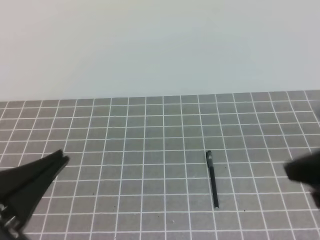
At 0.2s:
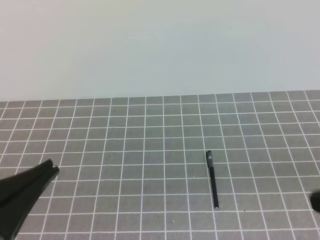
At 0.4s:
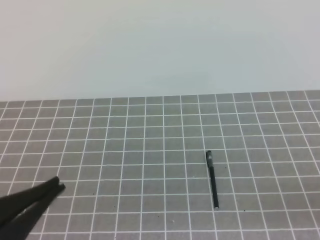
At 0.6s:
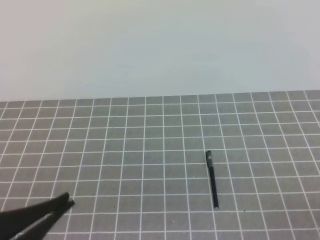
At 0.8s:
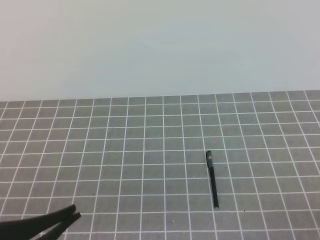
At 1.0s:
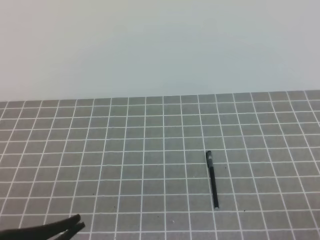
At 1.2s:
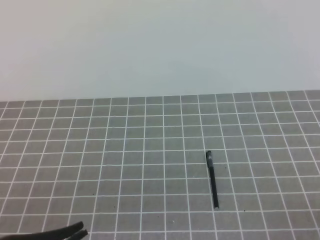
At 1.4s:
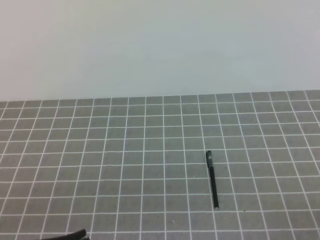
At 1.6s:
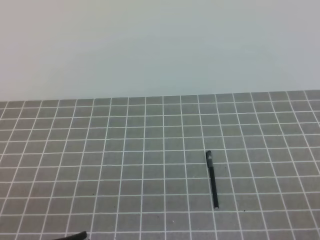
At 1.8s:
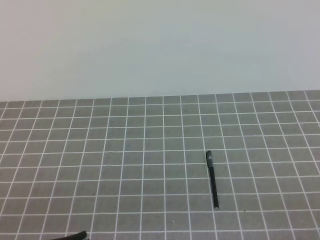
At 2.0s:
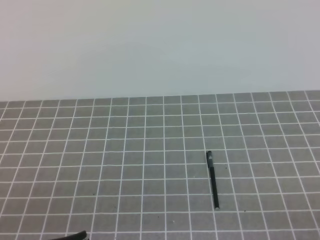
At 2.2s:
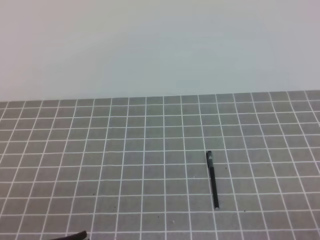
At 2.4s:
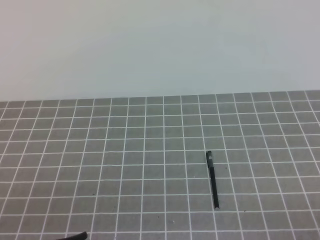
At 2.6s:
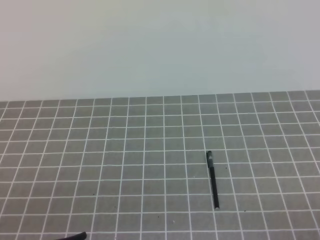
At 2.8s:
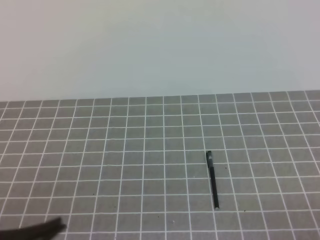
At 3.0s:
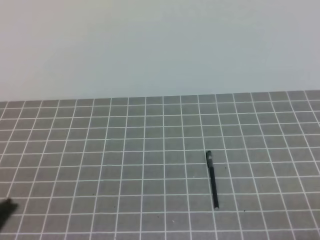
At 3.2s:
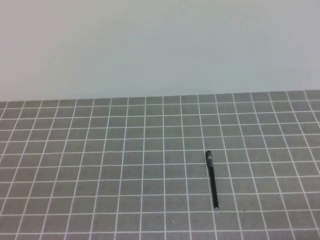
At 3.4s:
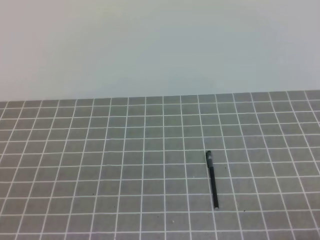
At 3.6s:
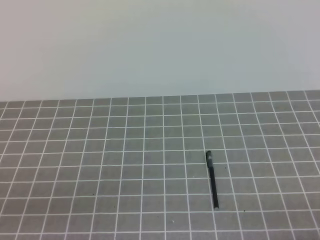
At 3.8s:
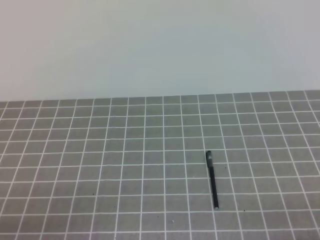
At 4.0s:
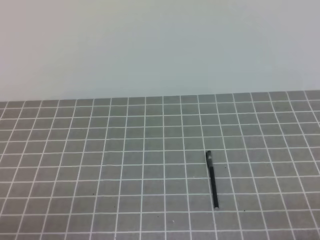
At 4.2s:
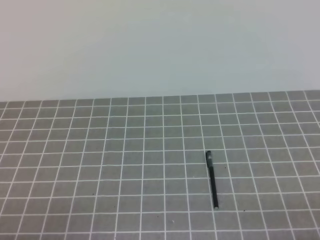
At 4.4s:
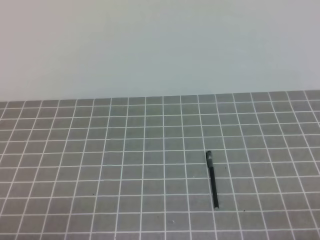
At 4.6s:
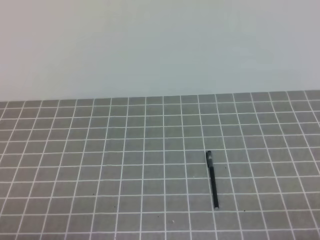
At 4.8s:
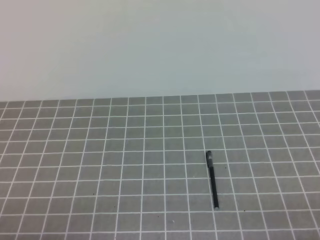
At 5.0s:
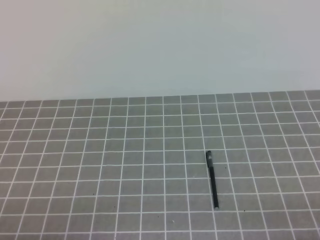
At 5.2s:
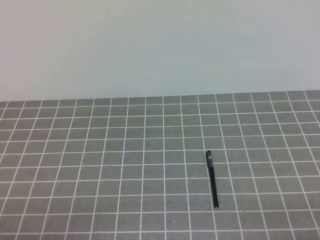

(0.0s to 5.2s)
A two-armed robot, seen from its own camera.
Task of the whole recording: on the grey tablecloth, hold the pen cap in one hand and the pen in the other, then cover the pen cap.
Step, 0.0s - 5.2s: Put the cap on the pen.
0.0s - 1.8s: The right gripper heads backward, downward and to the right, covering about 20 cm.
